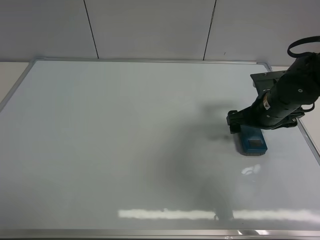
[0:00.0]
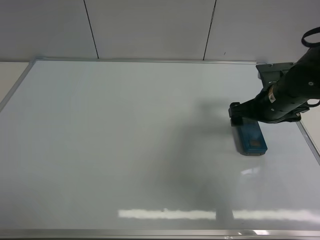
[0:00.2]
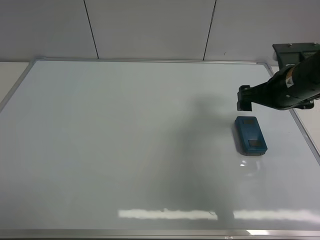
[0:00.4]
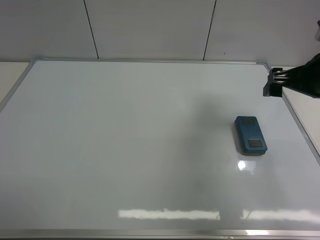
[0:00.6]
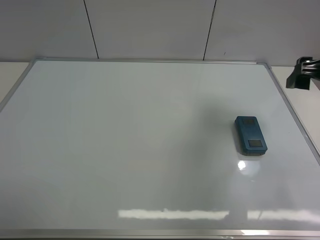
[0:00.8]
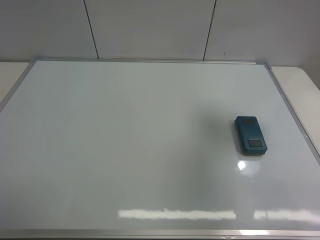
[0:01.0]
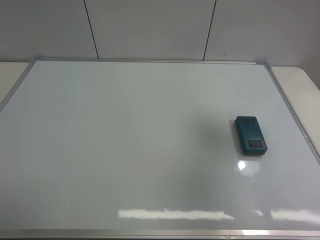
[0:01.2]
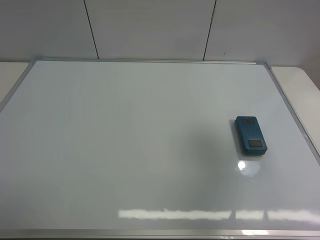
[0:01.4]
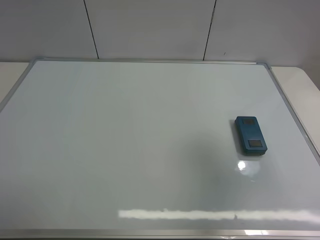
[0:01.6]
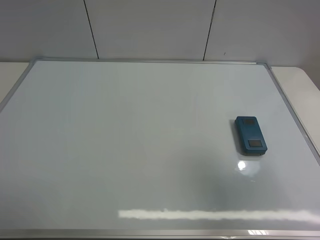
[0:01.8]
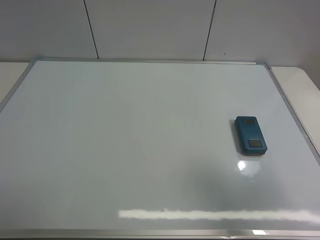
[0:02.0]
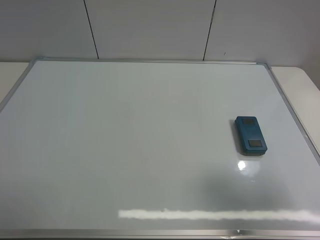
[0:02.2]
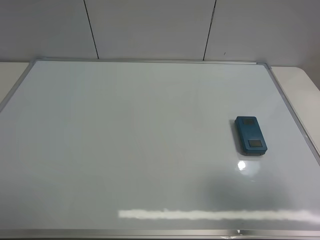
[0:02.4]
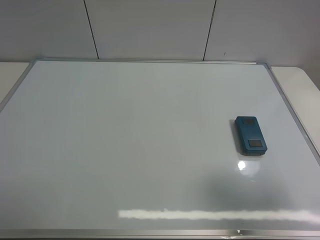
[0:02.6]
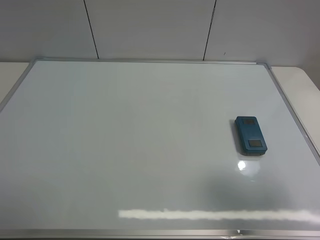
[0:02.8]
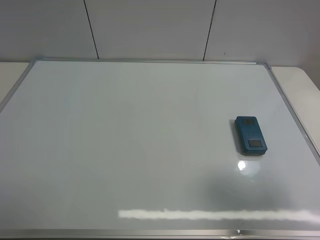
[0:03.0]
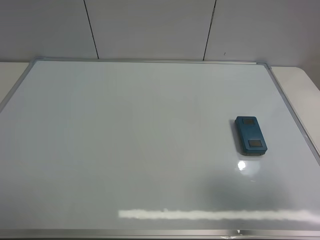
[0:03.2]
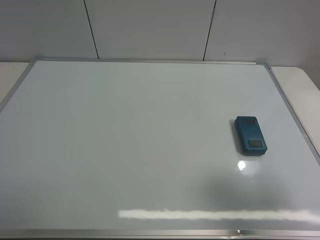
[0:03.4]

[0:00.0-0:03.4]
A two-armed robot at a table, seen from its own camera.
Task of the whole recording: use the right gripper to pick up the board eraser, wipe the notes on the whiteboard clean, and then put them back in place.
0:00.0 to 0:01.6: The right gripper is displaced upward and backward by roughly 30 cm.
0:01.6 to 0:03.4: The right gripper travels downward and backward by about 10 cm.
